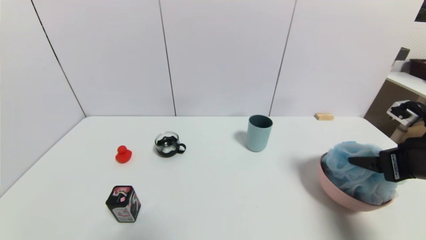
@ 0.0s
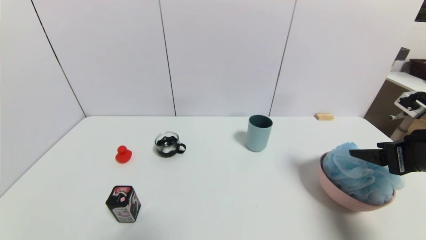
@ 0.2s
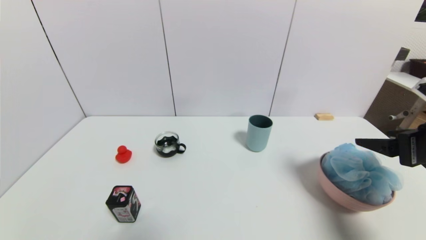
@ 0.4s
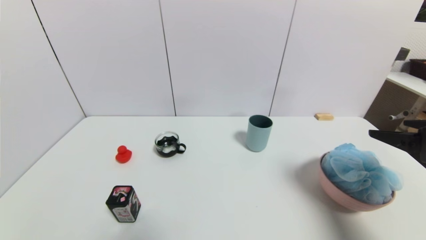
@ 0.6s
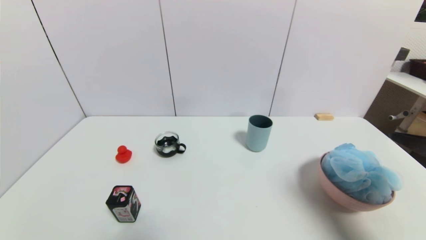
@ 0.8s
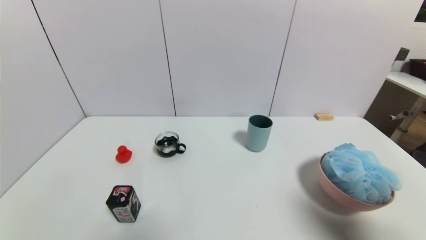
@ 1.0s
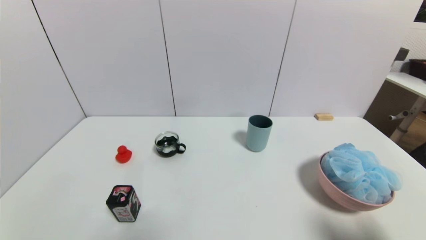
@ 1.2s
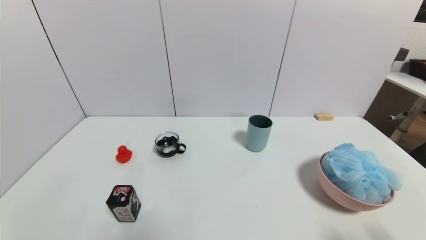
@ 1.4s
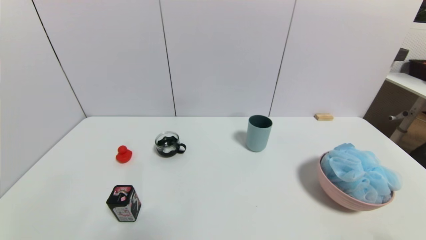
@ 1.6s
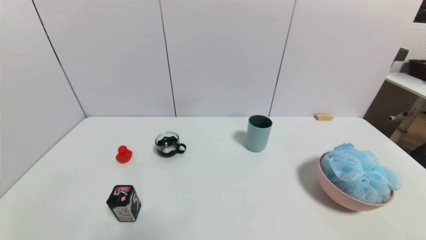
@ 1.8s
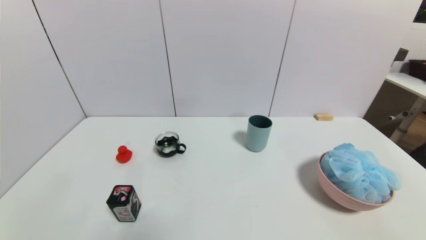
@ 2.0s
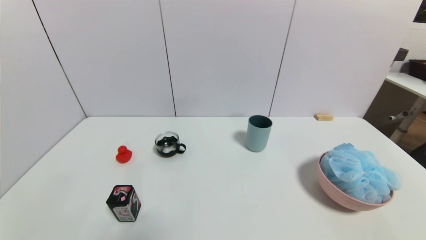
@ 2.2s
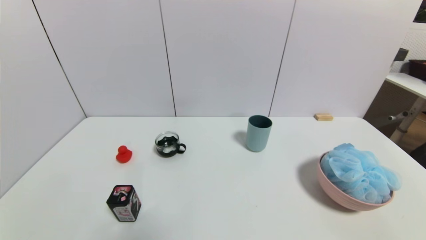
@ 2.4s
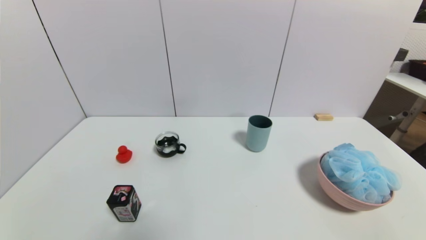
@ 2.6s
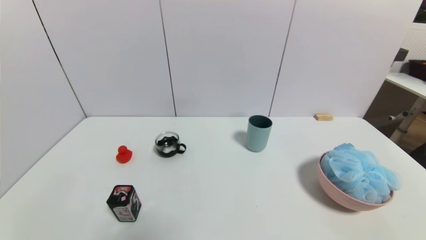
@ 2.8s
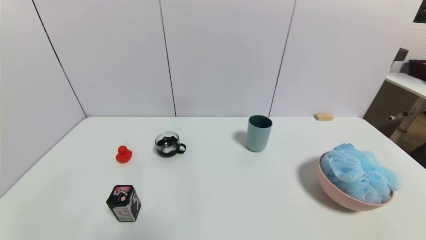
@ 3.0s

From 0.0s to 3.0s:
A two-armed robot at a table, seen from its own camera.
Task of the whole recording: use a gripper to pick the target object and place on the pink bowl.
From 0.0s to 1.6s: The right gripper moves backward, roughly 20 cm.
